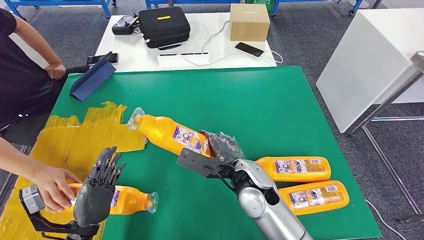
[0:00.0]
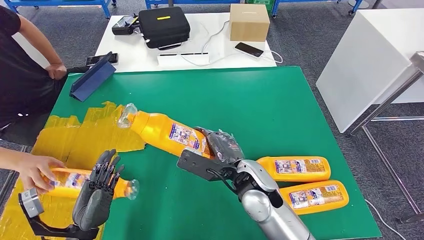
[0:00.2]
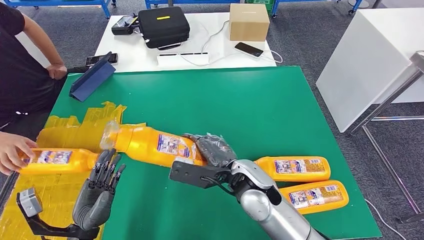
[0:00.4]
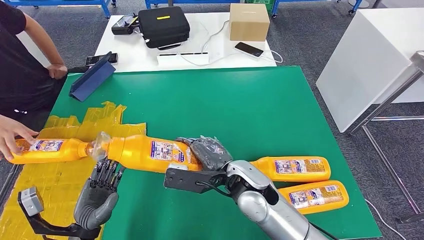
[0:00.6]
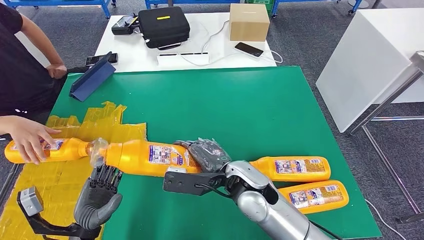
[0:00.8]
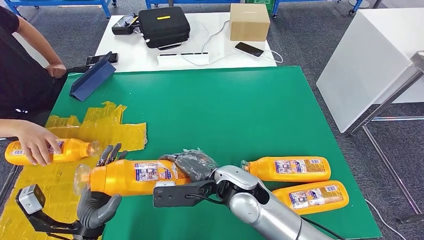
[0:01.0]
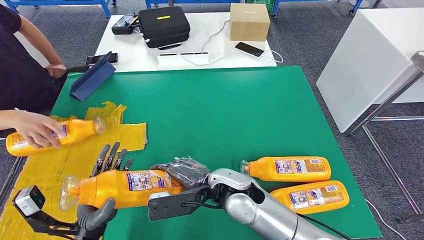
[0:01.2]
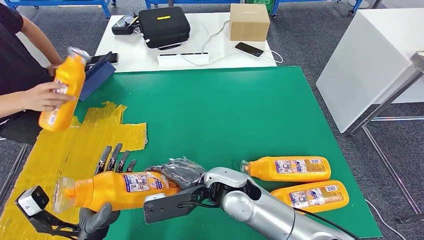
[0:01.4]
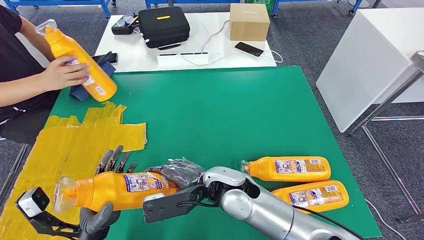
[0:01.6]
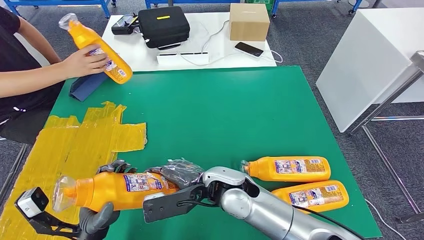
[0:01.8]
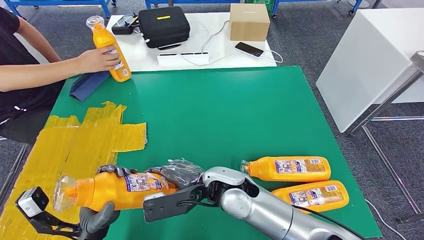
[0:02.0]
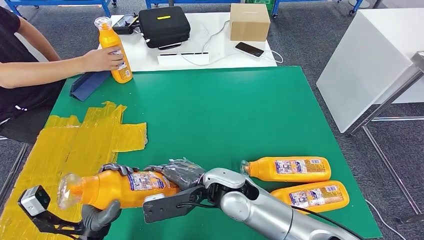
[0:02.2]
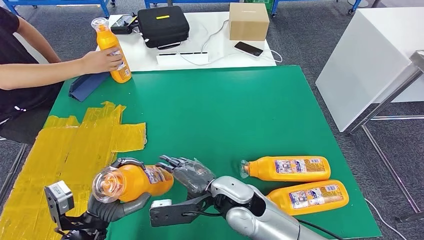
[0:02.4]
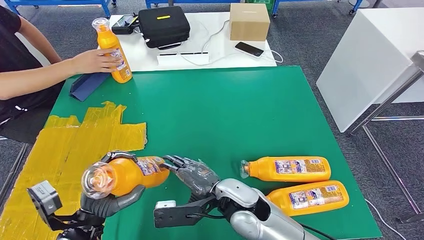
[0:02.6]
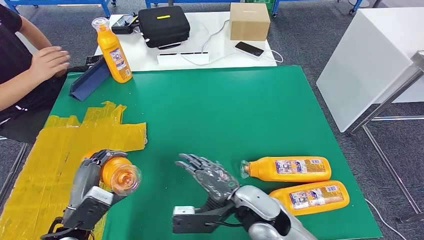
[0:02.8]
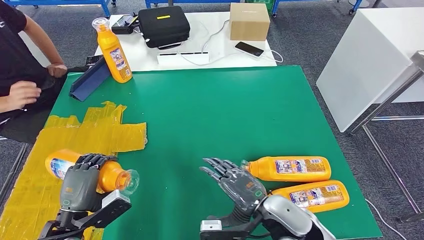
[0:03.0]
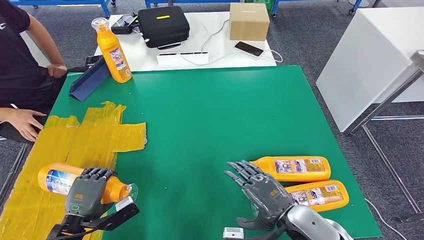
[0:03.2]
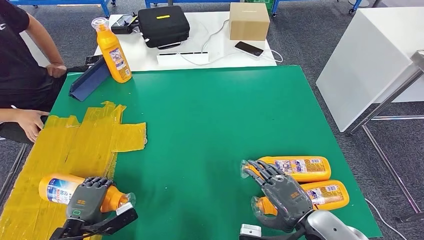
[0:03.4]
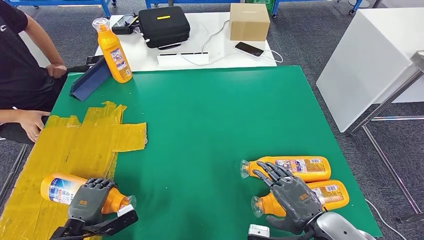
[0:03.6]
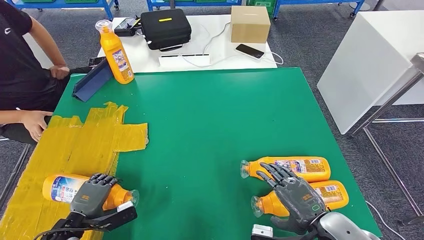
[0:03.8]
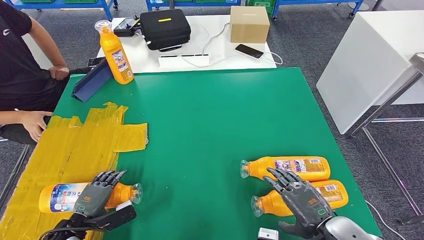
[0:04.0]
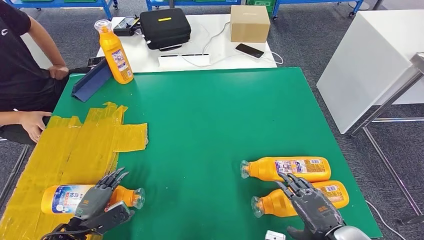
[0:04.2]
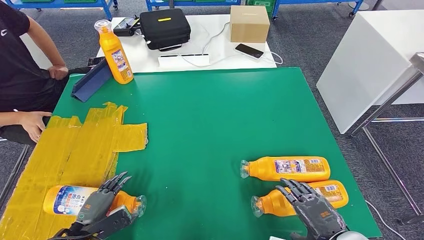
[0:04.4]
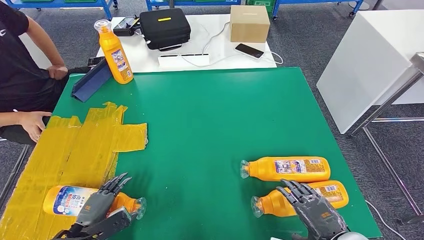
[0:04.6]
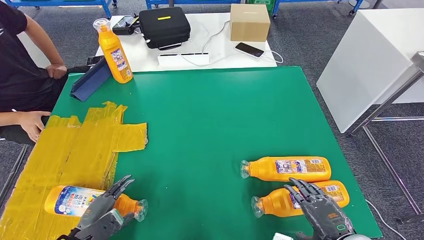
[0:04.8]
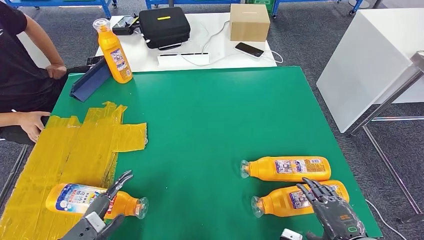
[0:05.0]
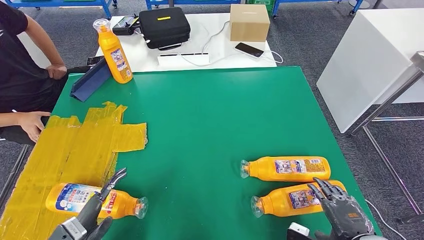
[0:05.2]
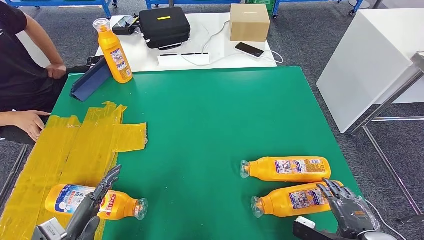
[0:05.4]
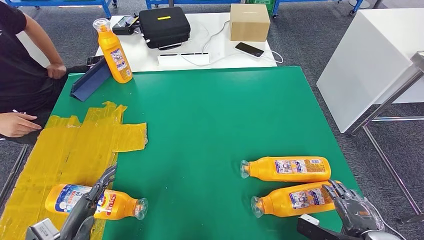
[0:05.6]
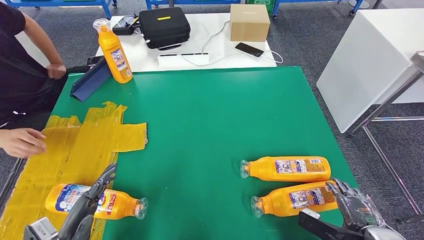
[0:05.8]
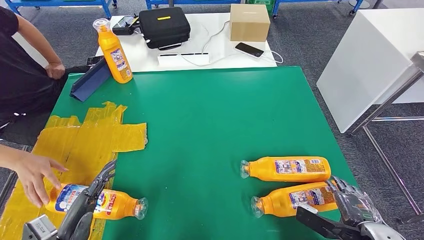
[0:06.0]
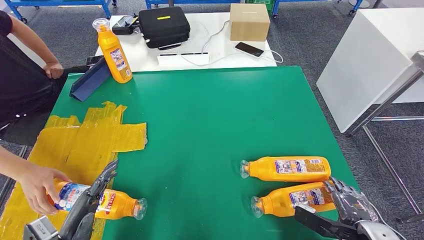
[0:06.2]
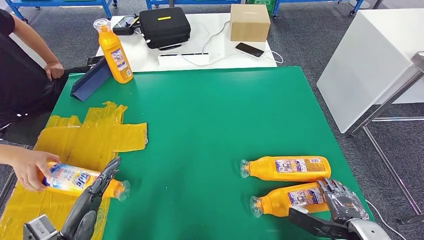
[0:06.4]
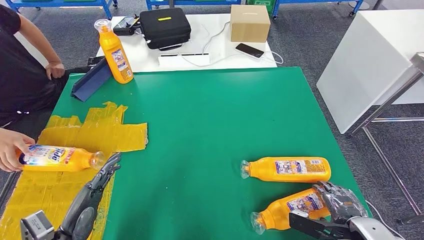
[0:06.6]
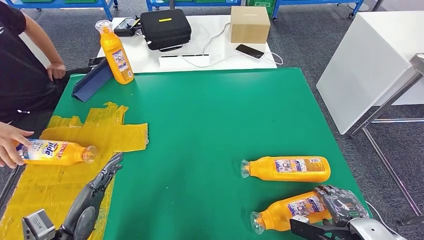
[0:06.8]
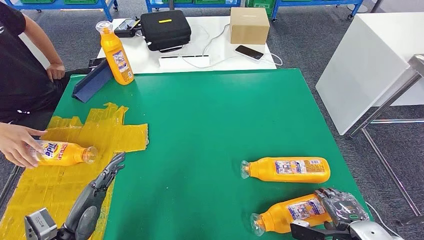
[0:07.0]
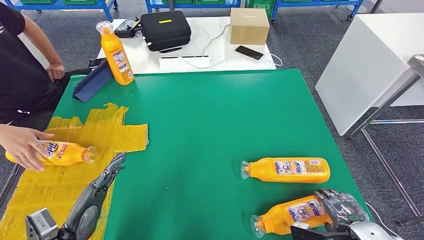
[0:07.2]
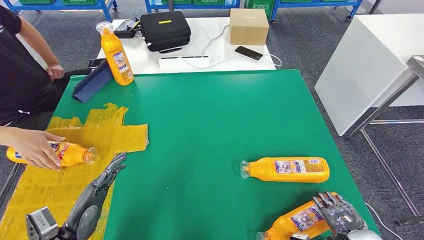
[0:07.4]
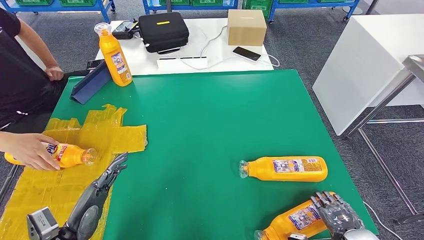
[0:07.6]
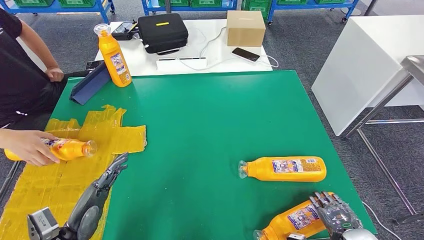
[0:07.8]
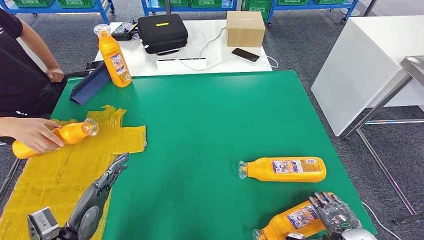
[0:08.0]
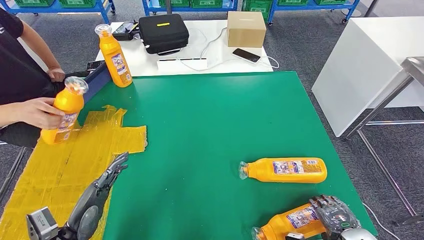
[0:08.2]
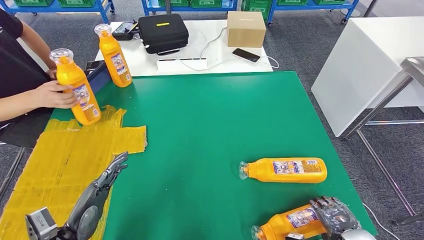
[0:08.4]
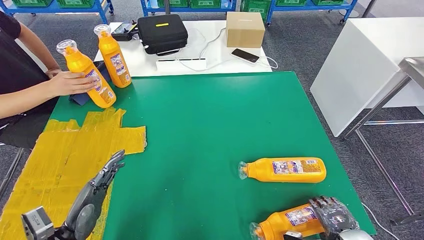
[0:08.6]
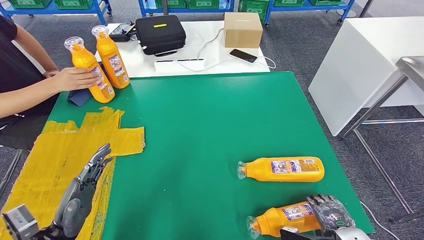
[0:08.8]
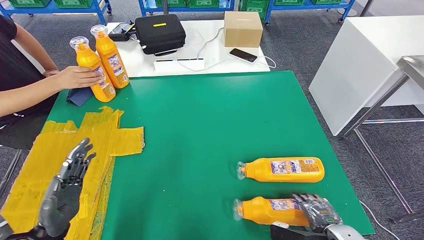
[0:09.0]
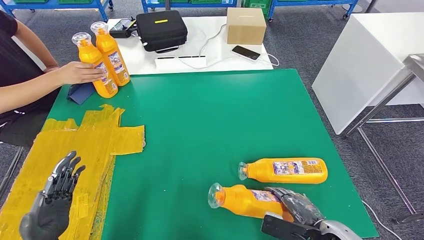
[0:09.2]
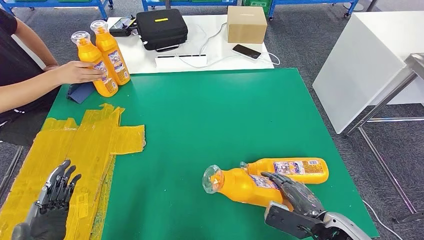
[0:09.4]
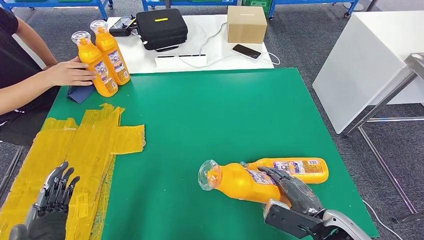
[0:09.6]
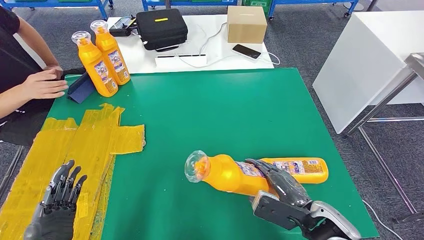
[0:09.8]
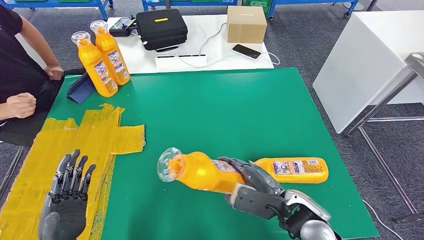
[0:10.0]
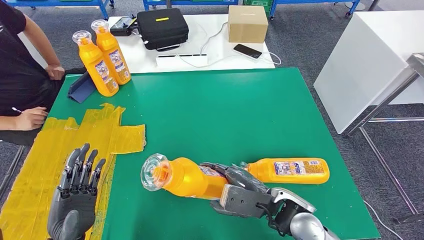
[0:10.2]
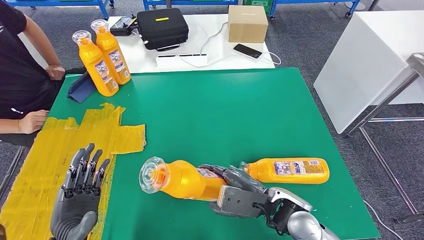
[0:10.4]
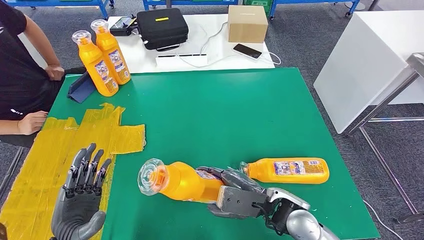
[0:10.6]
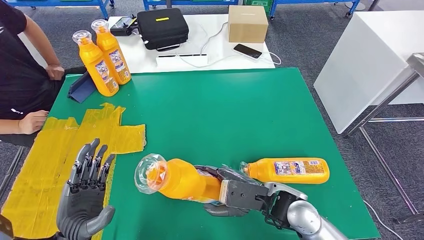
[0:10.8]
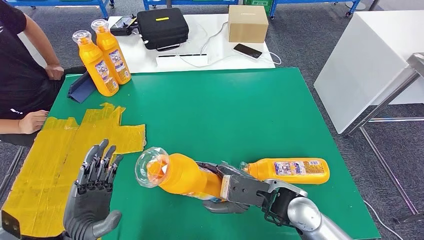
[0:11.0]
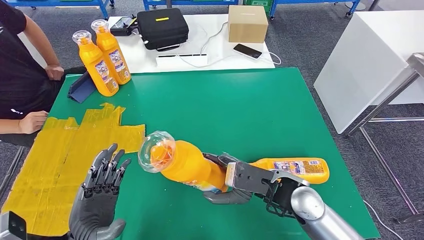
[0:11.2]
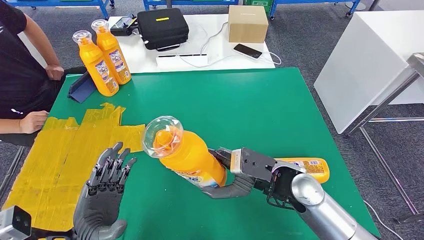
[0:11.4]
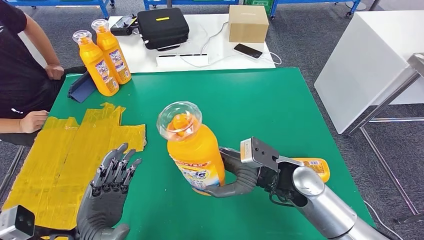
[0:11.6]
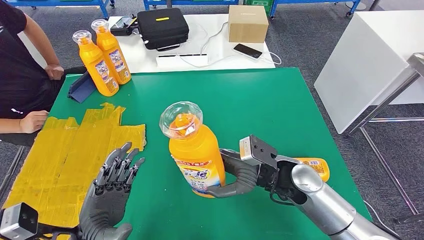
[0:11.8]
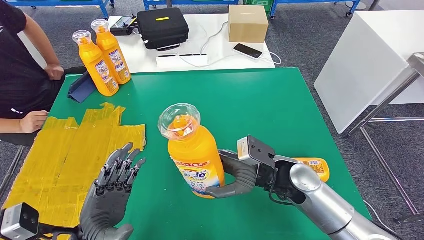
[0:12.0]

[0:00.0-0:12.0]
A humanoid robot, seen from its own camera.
Step, 0:00.2 to 0:03.0: Pick up the fast-moving consumer goods bottle from the table.
Step, 0:03.4 to 0:05.4: Flip the fast-moving consumer goods bottle to the front side.
Step, 0:05.8 to 0:10.0: Pick up the fast-moving consumer goods bottle from the table.
0:04.4 to 0:06.0: The left hand travels upward by about 5 cm; the right hand shifts about 5 cm to the right.
0:10.4 to 0:12.0: The right hand heads forward, covering about 5 cm.

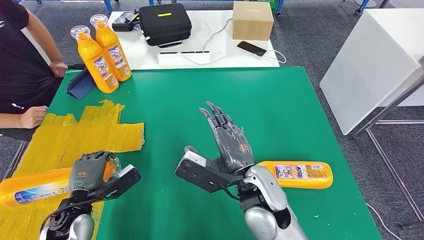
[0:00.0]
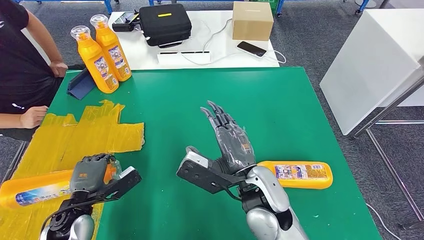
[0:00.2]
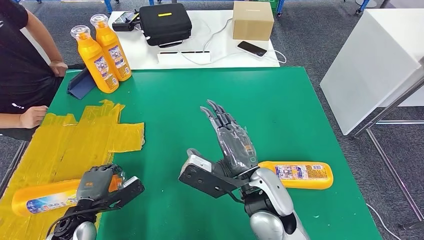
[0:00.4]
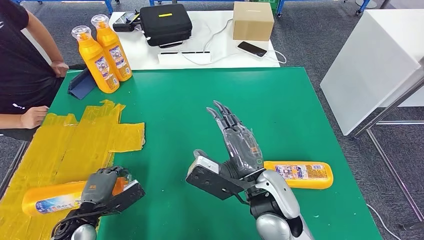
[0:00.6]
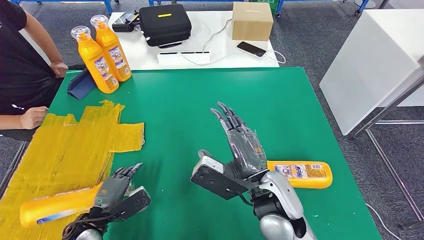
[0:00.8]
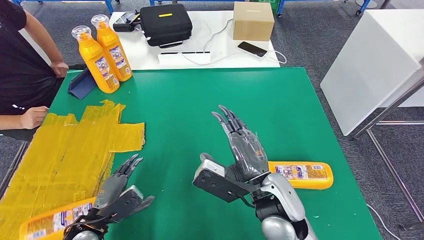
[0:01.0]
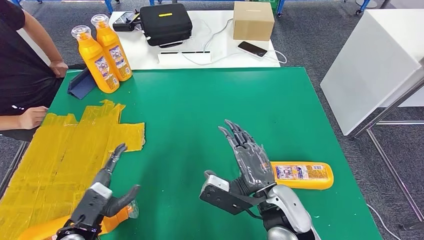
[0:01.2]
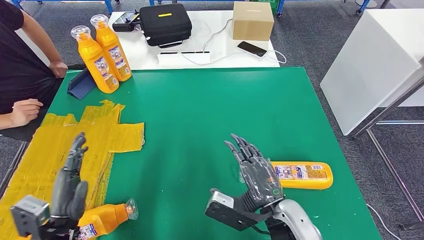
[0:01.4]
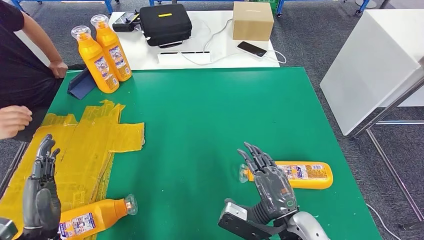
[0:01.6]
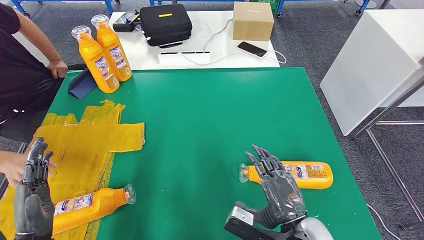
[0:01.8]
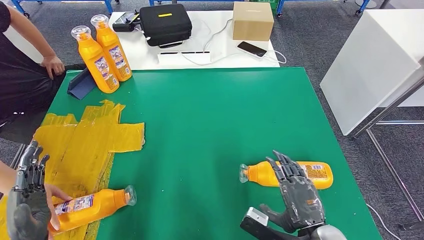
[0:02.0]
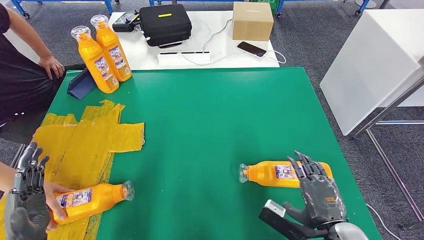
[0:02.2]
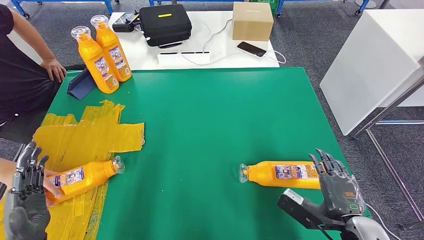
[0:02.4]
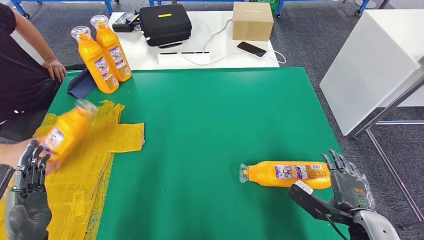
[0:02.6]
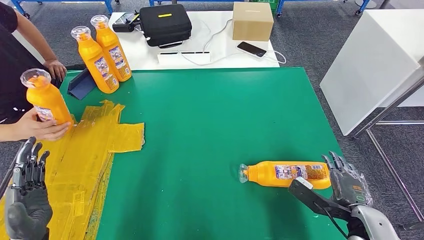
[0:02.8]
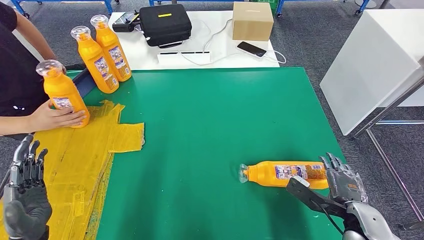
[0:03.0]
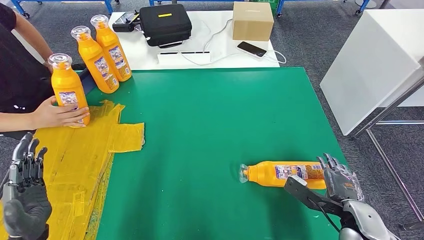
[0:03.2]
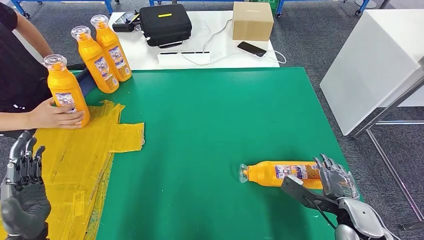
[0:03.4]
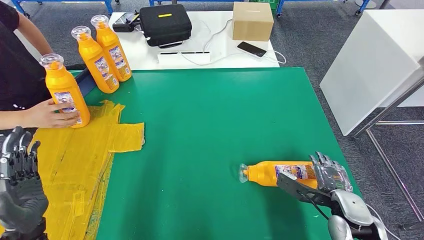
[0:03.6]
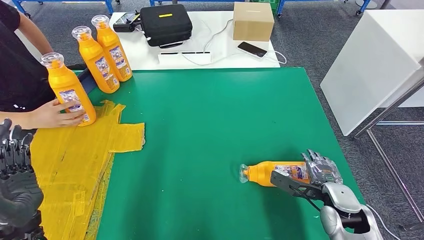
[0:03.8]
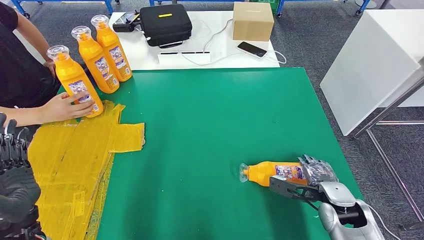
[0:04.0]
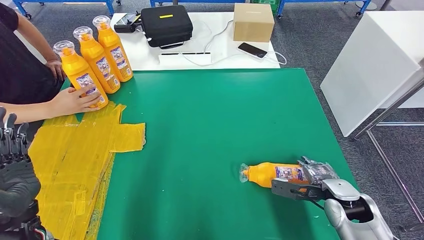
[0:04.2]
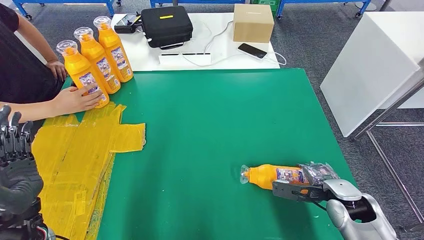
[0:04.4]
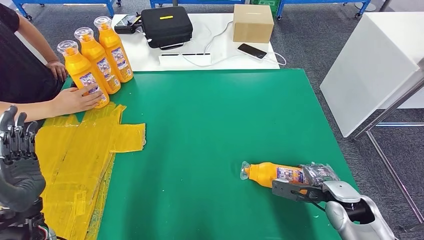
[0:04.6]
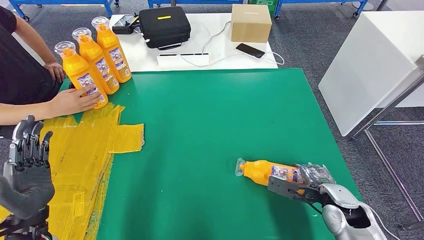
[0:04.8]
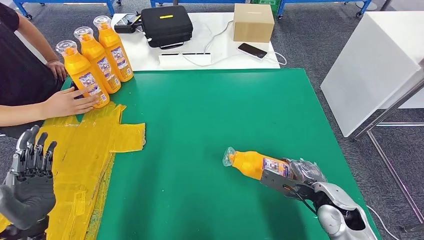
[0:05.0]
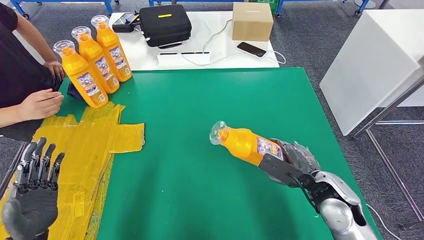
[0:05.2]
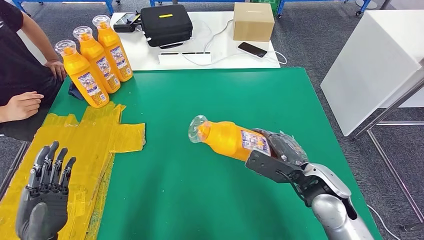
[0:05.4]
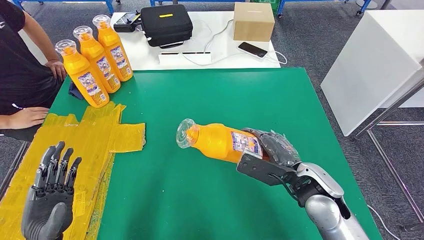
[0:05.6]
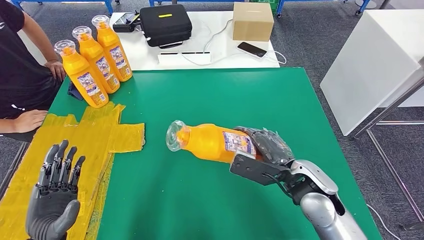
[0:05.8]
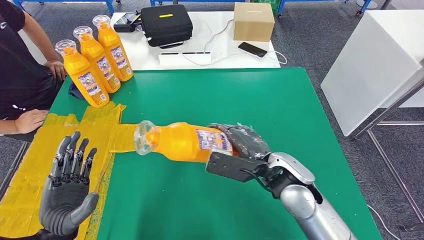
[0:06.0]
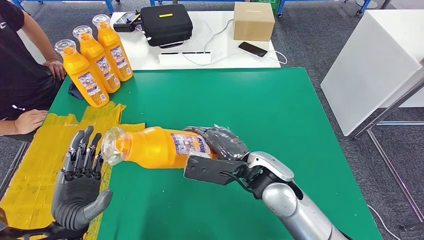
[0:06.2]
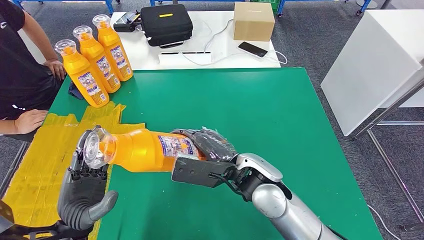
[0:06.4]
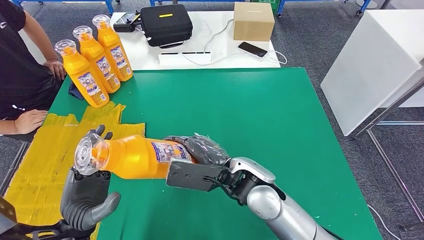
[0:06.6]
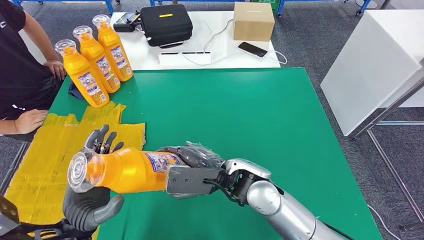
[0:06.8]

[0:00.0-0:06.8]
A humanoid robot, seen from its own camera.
Step, 0:01.2 to 0:05.6: Pick up the fast-moving consumer goods bottle from the table.
0:00.0 to 0:01.4: The right hand goes roughly 10 cm to the right and backward. Meanwhile the left hand travels backward by approximately 5 cm.
0:01.4 to 0:02.8: The left hand changes place by roughly 5 cm; the right hand goes roughly 15 cm to the right.
0:02.8 to 0:04.0: The right hand shifts roughly 5 cm forward.
